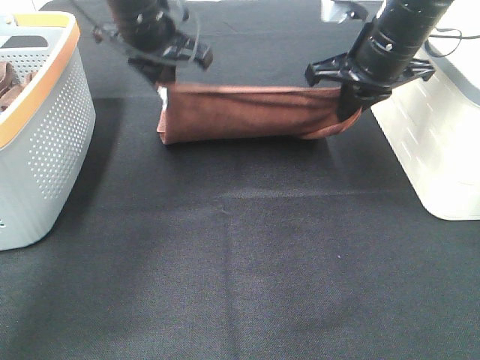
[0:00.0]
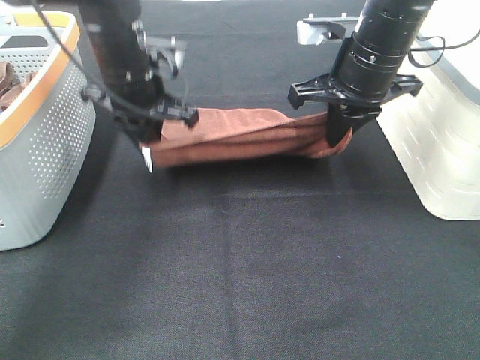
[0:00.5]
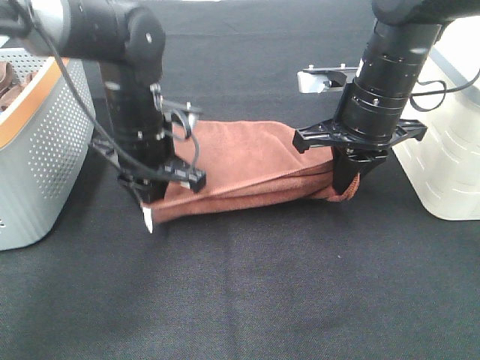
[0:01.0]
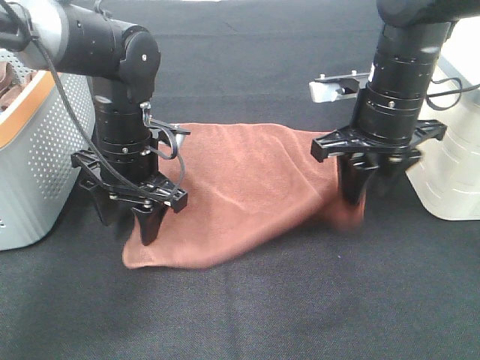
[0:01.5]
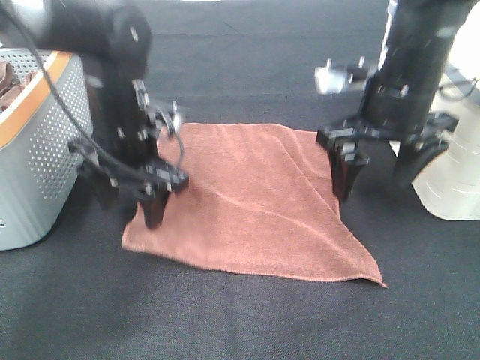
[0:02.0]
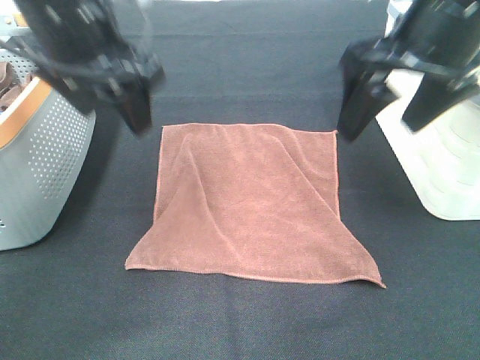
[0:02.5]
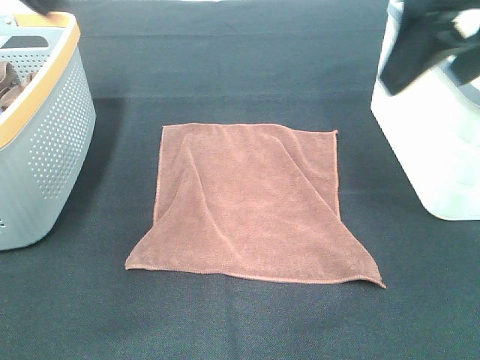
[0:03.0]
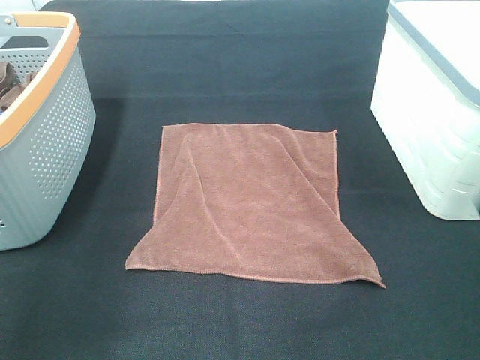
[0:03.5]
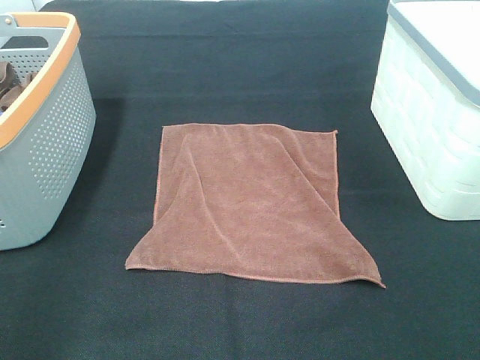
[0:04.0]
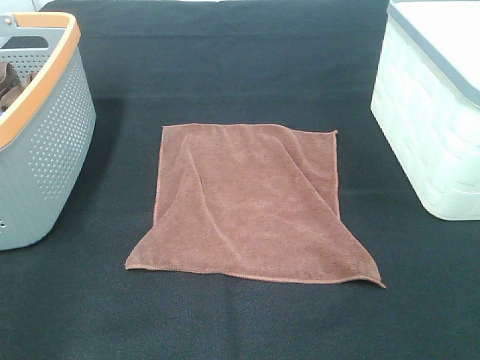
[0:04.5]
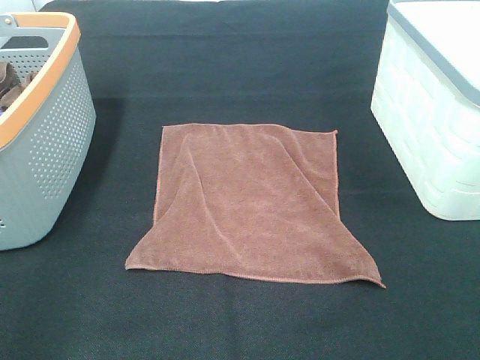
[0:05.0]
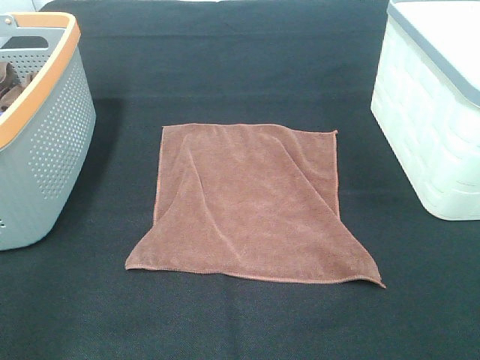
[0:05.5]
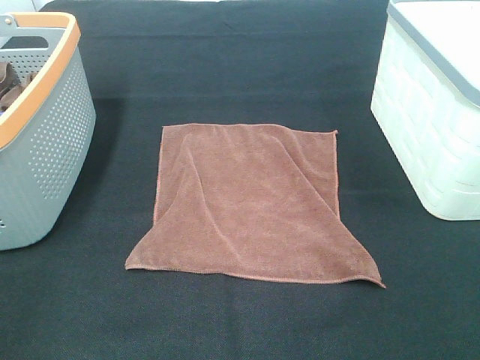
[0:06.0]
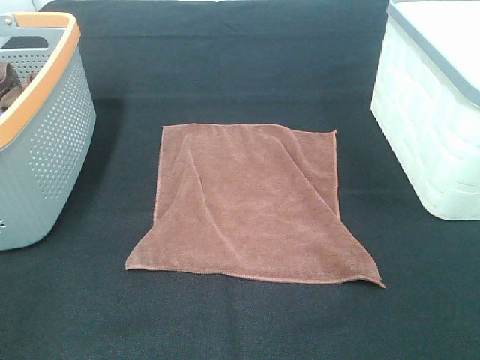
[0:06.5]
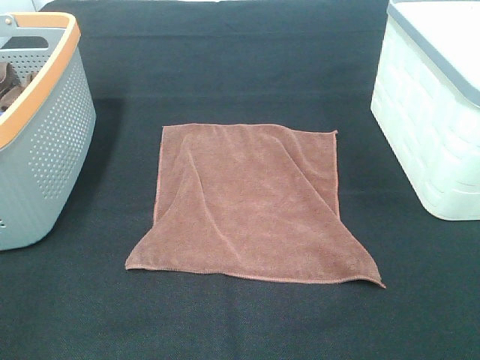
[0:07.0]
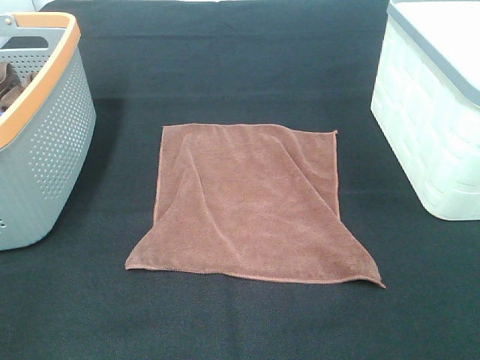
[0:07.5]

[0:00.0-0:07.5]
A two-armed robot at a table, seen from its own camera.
Task of the whole recording: Remove the towel and place it.
0:00.0 to 0:02.0: The left gripper is displaced backward and downward by roughly 10 cm, and opens its fingers. Meanwhile the right gripper moves backward, roughly 5 cm, and opens.
0:02.0 to 0:04.0: The left gripper is displaced backward and to the left by some 35 cm, while the right gripper shifts about 30 cm backward and to the right.

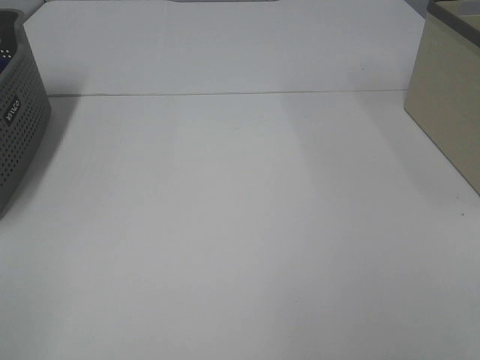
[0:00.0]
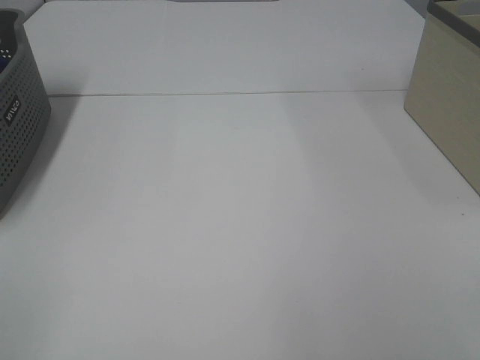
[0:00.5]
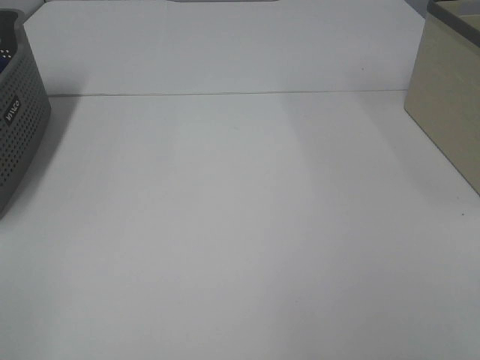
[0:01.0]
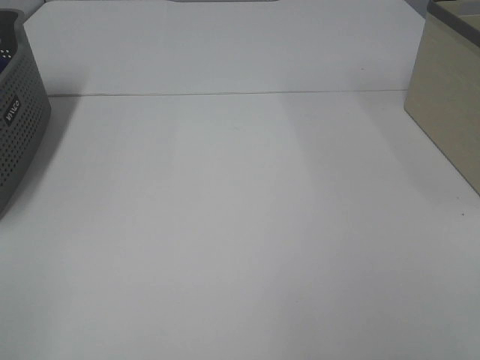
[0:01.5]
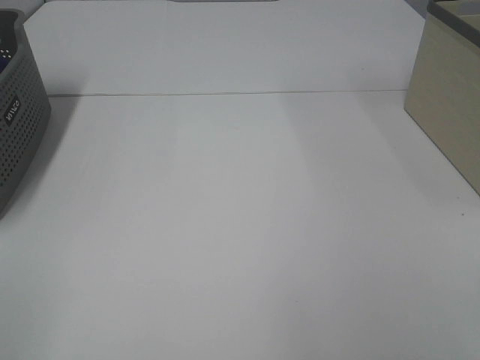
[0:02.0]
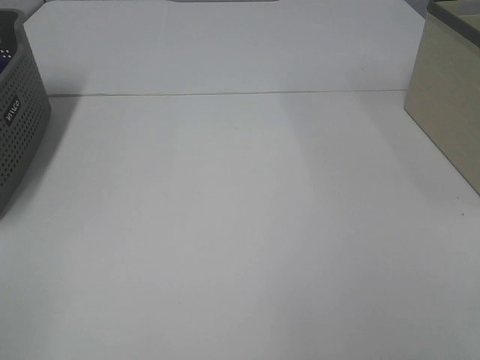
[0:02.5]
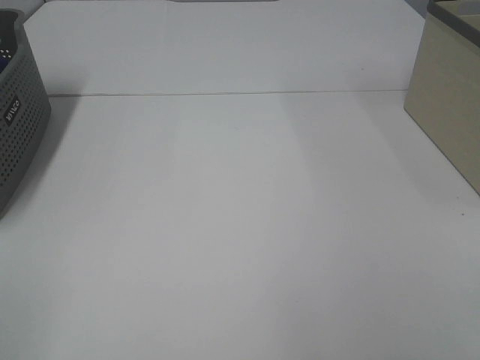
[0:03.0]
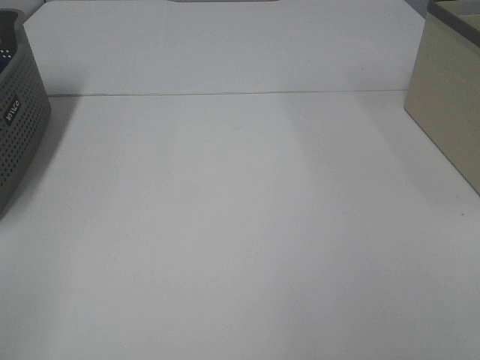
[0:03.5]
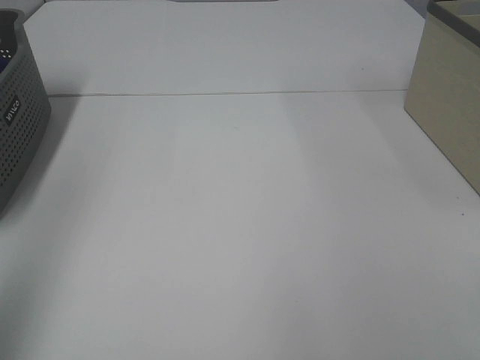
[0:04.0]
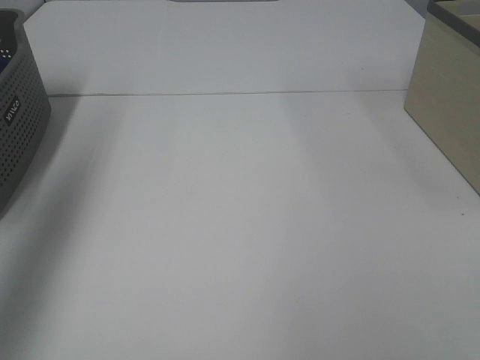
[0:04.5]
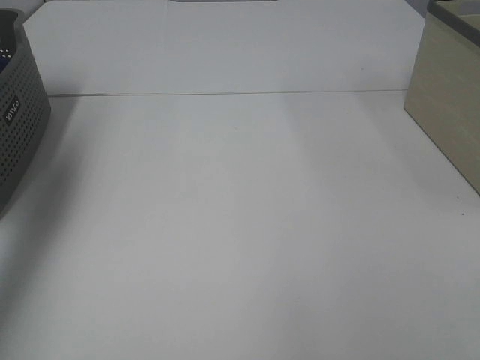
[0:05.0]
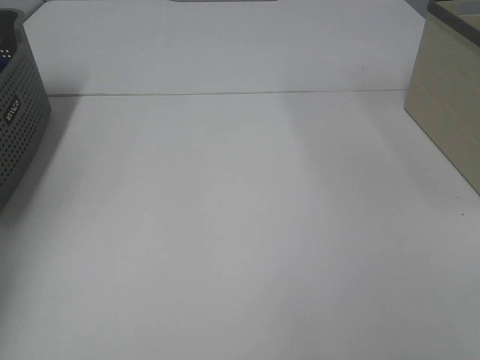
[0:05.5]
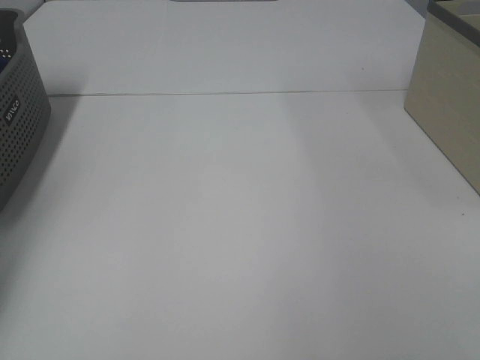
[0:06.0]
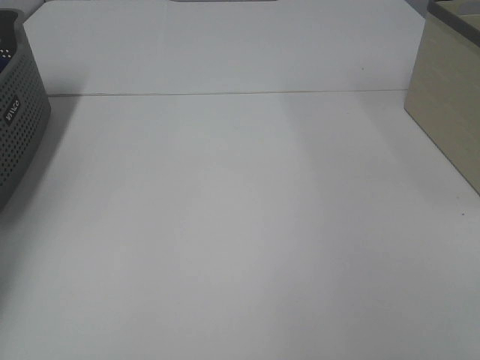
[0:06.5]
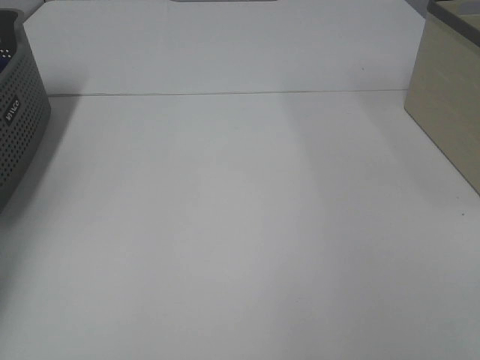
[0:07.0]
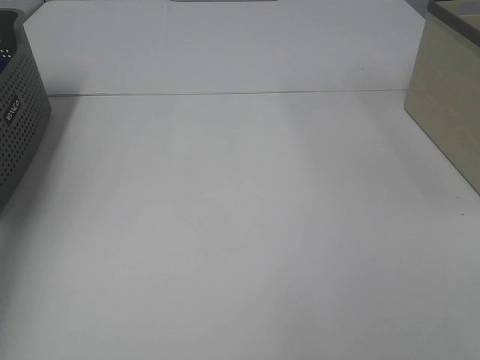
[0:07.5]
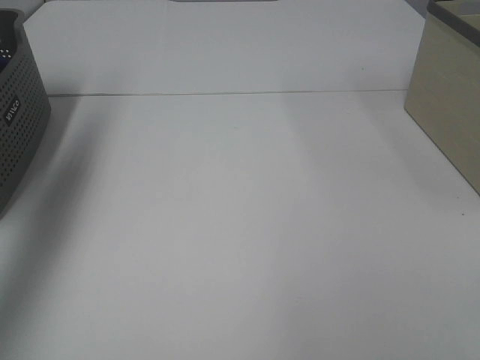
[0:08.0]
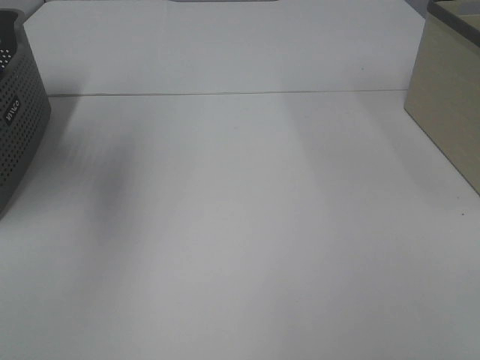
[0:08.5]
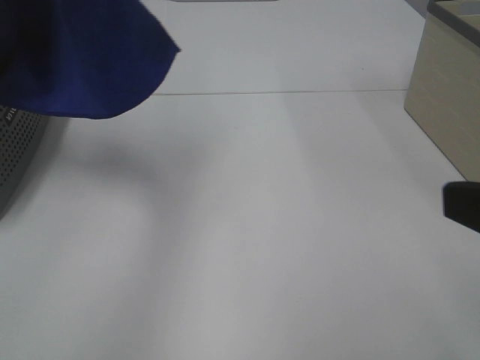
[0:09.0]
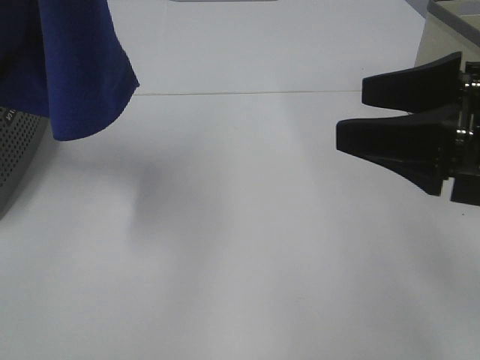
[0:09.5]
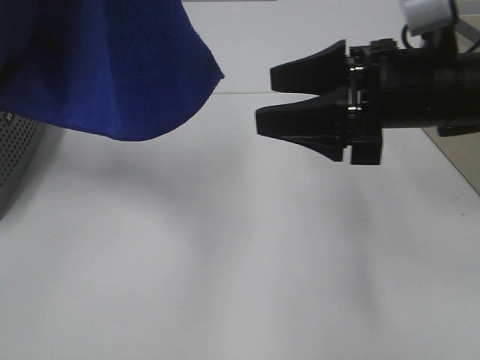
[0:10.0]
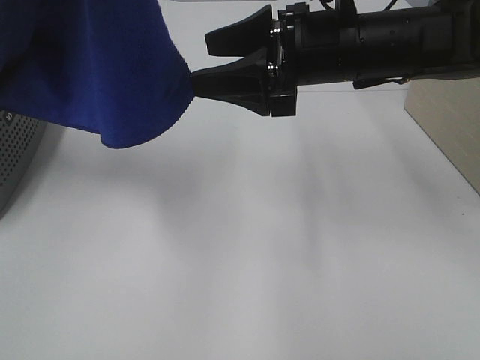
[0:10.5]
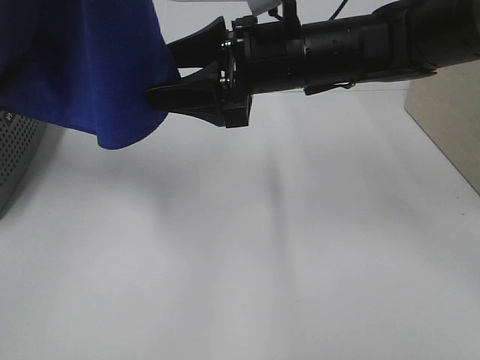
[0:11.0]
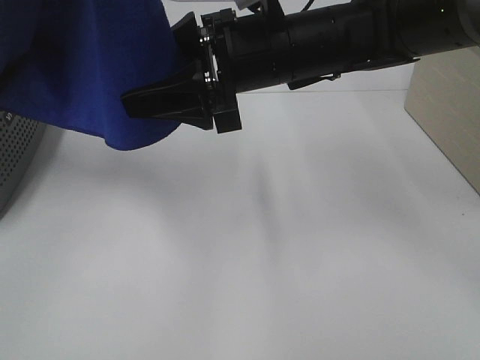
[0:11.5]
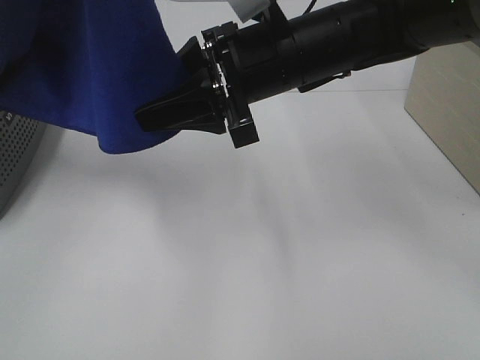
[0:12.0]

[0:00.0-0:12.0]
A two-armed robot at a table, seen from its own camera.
Task of the whole recording: Remove the towel and place it.
Step, 0:09.0 to 0:12.0: Right hand: grab a corner of the blue towel and straighten it.
0:00.0 to 0:02.0: Both grippers stay put.
0:02.0 to 0:04.0: The left gripper is displaced forward and upward by roughly 15 cm.
0:04.0 to 0:06.0: The left gripper shifts about 40 cm forward and downward.
0:06.0 to 0:08.0: The left gripper goes approximately 25 cm upward and backward, and closes up.
0:08.0 to 0:10.0: The right gripper goes roughly 30 cm forward and to the left, while the left gripper travels to the right, backward and upward by some 25 cm.
0:10.0 to 0:12.0: The right gripper travels to the left by roughly 10 cm, and closes.

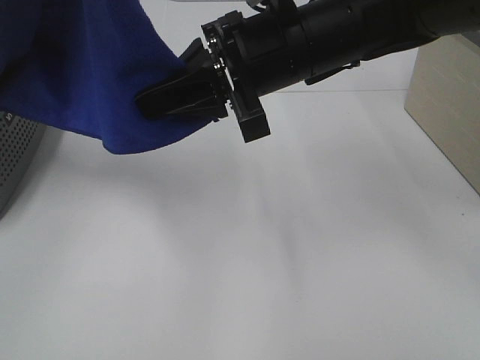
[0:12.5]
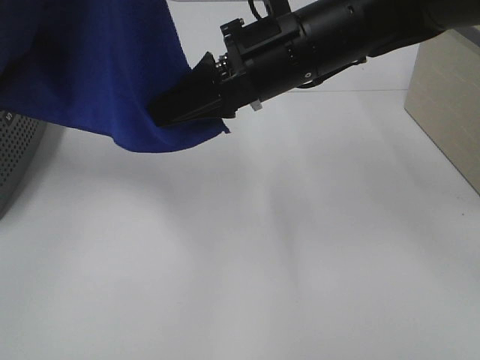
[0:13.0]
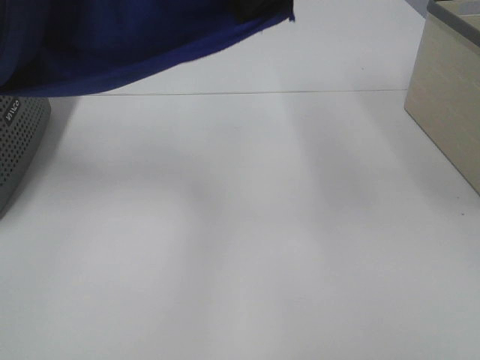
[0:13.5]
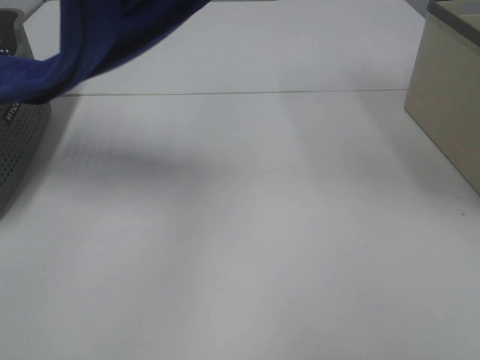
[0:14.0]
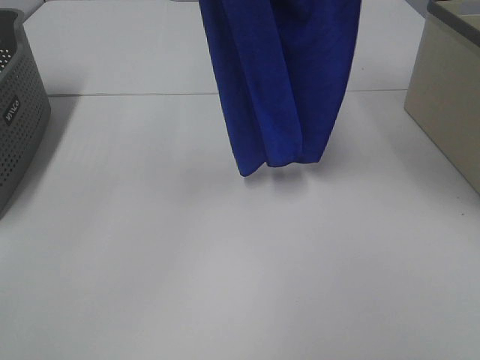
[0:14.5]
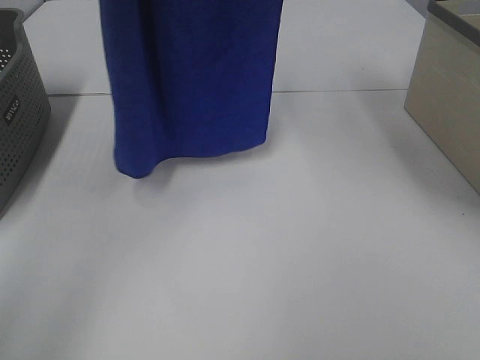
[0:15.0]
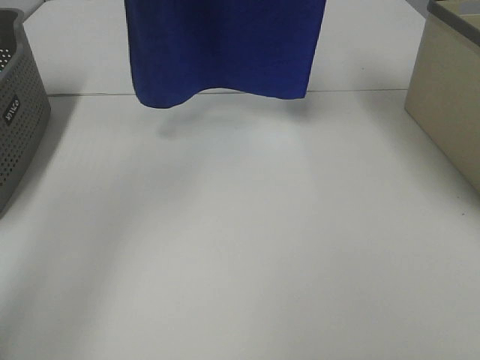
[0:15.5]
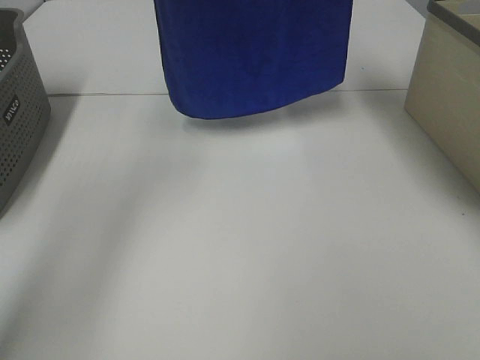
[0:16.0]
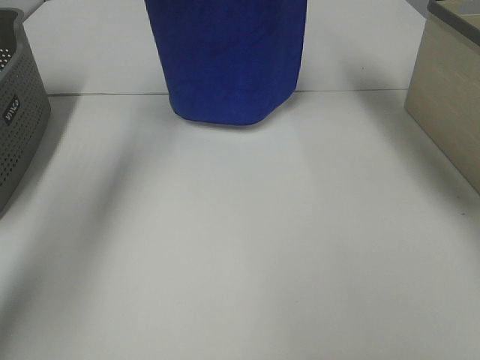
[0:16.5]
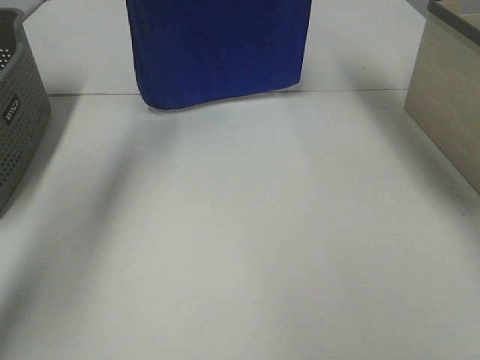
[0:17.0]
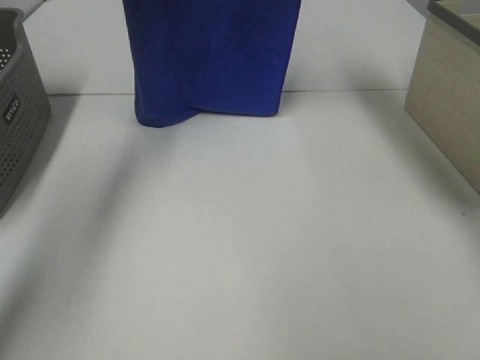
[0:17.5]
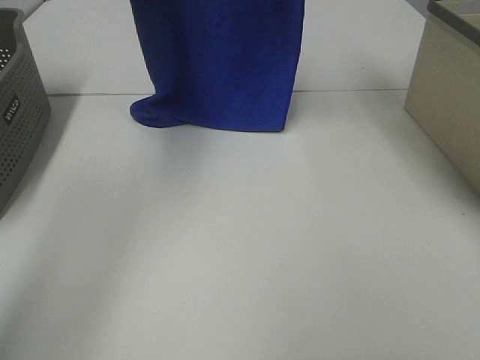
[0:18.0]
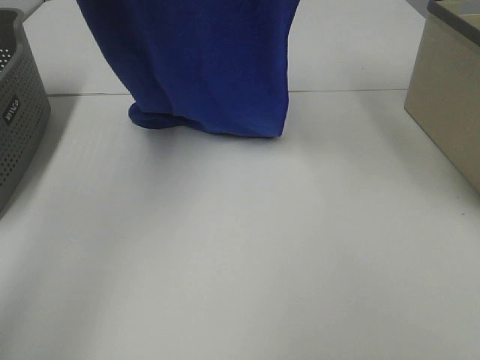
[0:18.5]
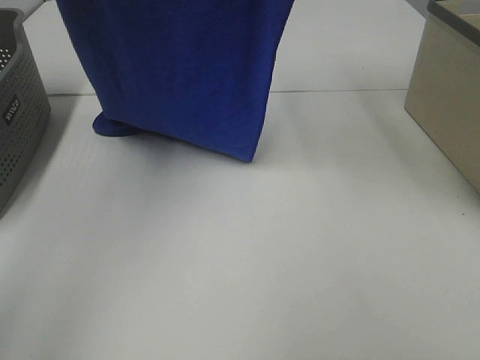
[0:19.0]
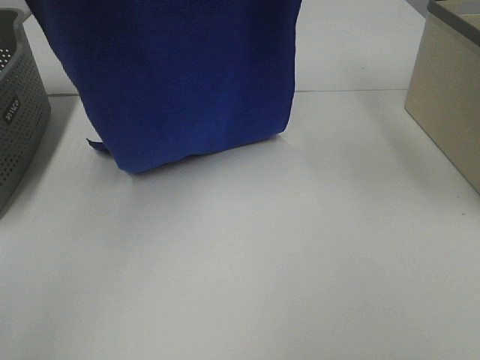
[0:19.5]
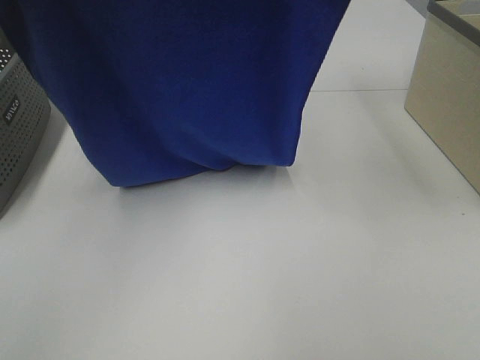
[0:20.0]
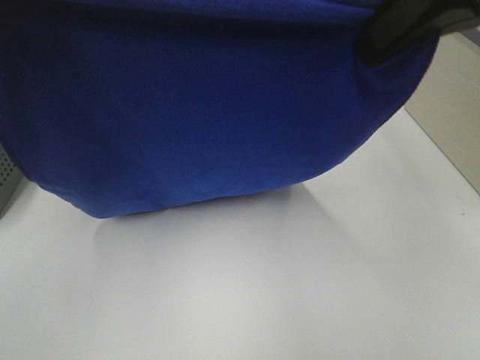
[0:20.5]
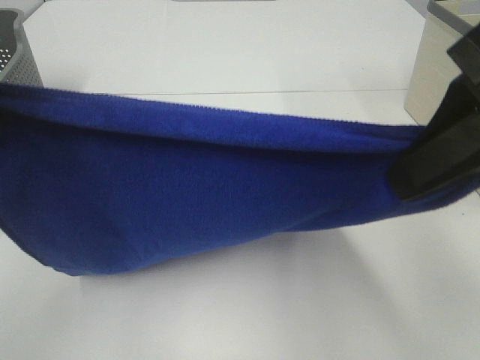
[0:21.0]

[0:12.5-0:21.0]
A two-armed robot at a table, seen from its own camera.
Task of the whole recording: Remove the towel and place it.
Step, 0:12.5 to 0:20.5: Left hand: spread the blue towel flat on the table.
Step, 0:12.5 to 0:20.5: Right hand: spread the blue towel flat on the table.
0:12.5 to 0:14.5: The right gripper travels upward by roughly 25 cm, while the left gripper shifts approximately 10 cm forward.
0:14.5 to 0:16.5: The right gripper shifts approximately 15 cm forward and downward; the left gripper moves forward, about 20 cm.
0:16.5 to 0:19.0: The left gripper goes about 15 cm backward; the right gripper heads backward, covering some 10 cm.
0:19.0 to 0:21.0: Both grippers move backward and downward, roughly 20 cm.
